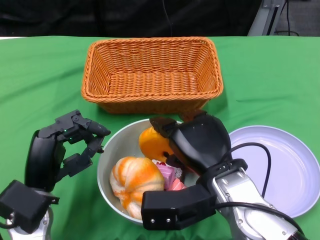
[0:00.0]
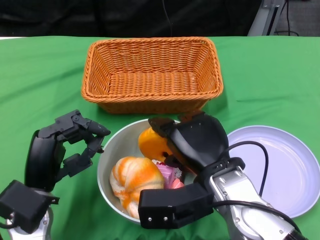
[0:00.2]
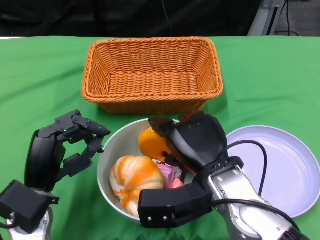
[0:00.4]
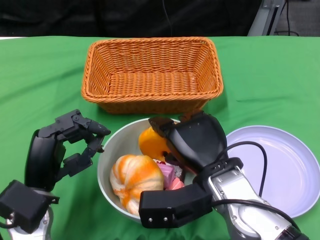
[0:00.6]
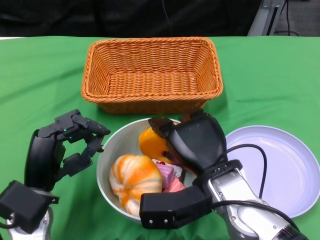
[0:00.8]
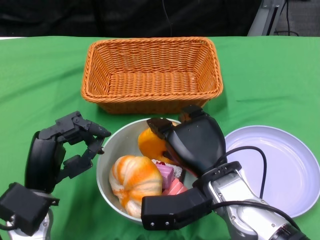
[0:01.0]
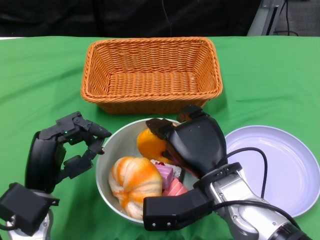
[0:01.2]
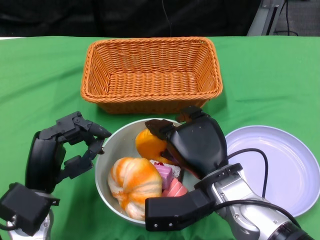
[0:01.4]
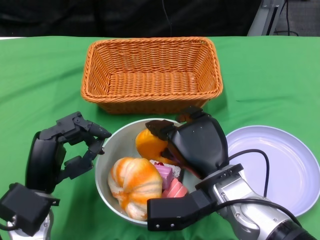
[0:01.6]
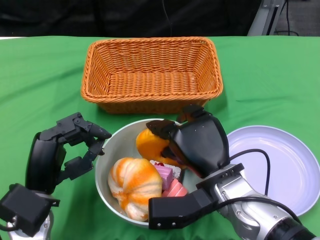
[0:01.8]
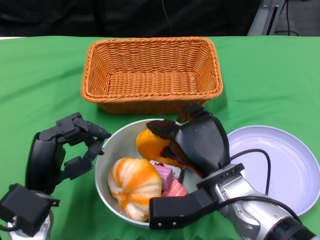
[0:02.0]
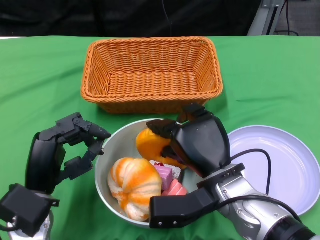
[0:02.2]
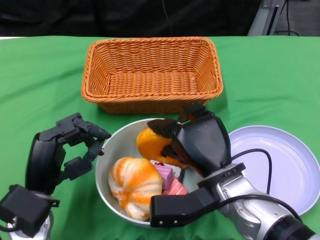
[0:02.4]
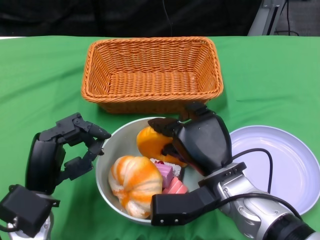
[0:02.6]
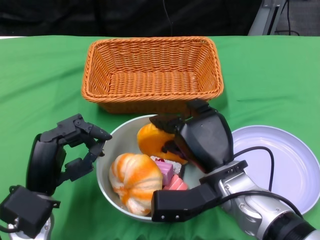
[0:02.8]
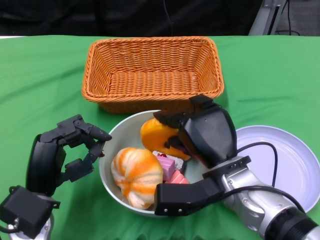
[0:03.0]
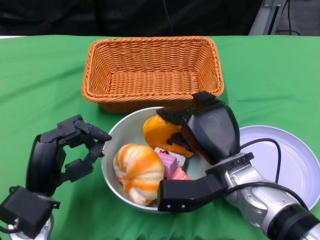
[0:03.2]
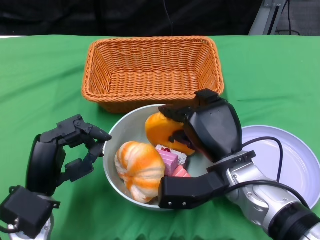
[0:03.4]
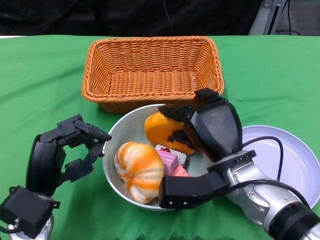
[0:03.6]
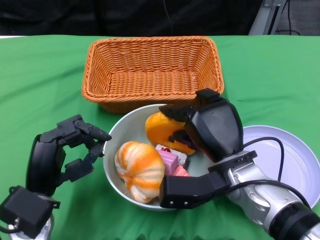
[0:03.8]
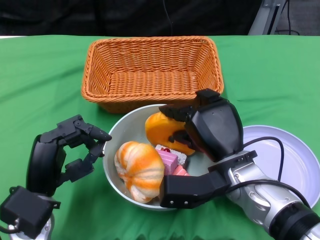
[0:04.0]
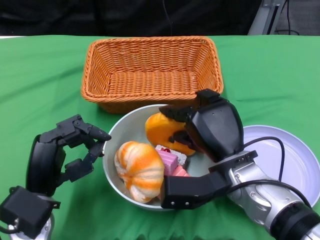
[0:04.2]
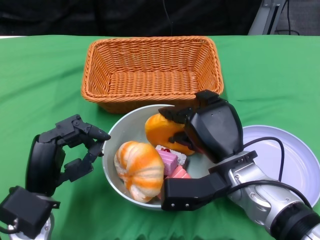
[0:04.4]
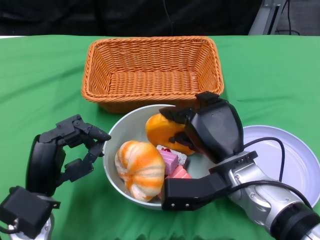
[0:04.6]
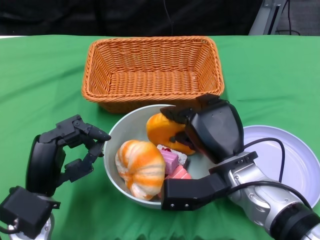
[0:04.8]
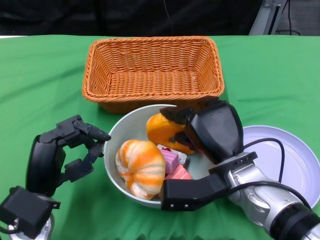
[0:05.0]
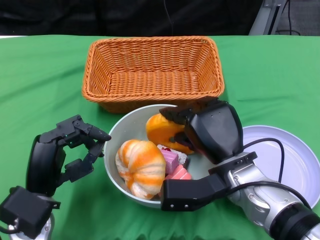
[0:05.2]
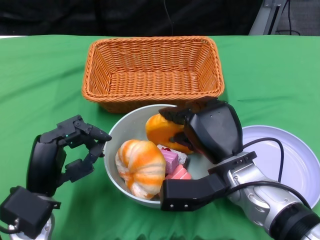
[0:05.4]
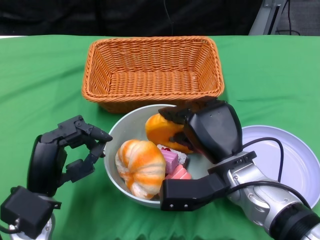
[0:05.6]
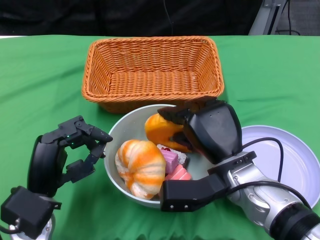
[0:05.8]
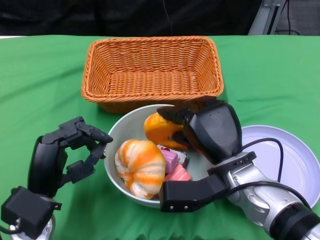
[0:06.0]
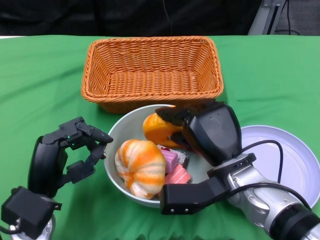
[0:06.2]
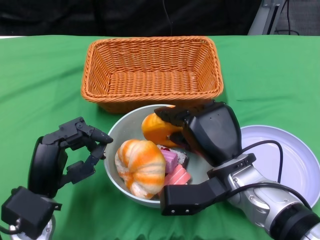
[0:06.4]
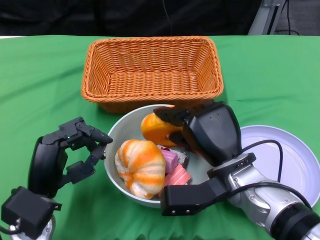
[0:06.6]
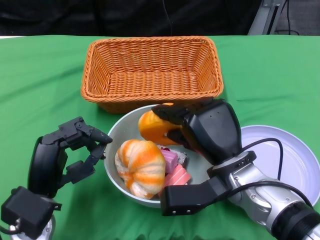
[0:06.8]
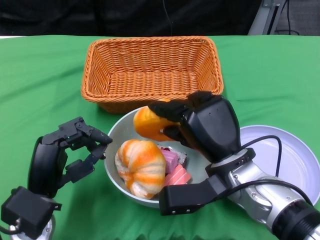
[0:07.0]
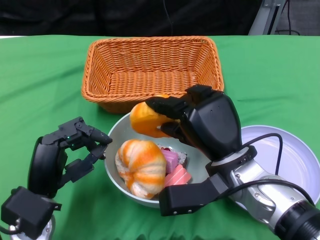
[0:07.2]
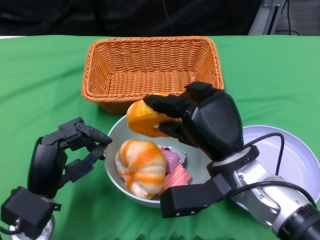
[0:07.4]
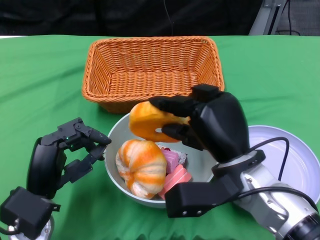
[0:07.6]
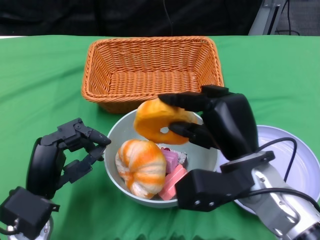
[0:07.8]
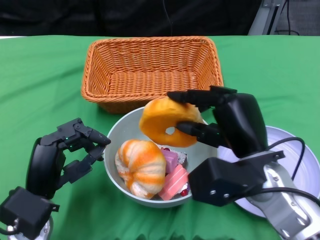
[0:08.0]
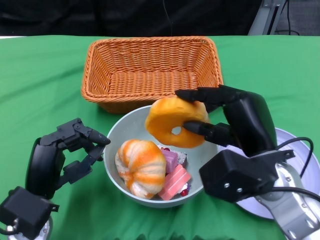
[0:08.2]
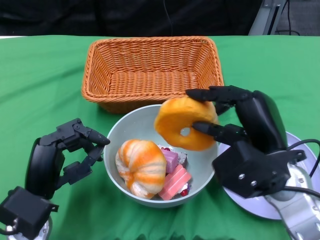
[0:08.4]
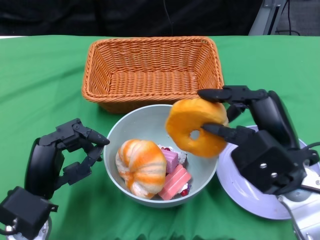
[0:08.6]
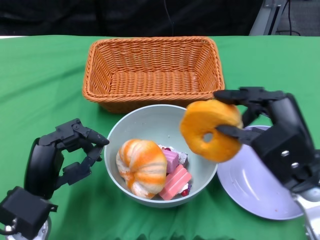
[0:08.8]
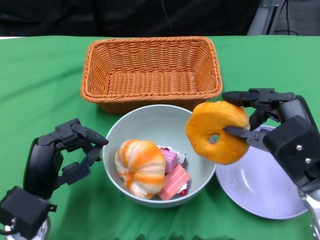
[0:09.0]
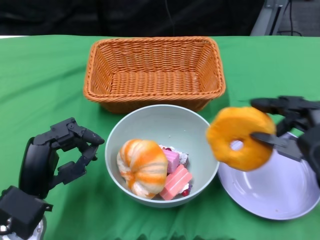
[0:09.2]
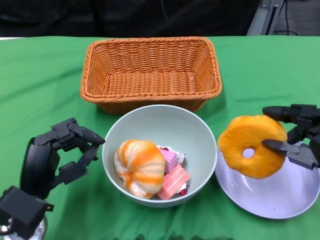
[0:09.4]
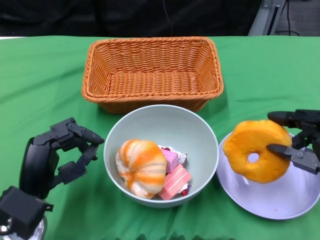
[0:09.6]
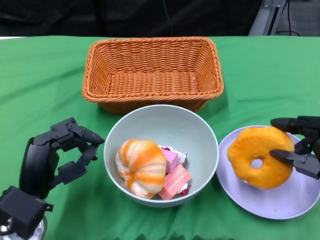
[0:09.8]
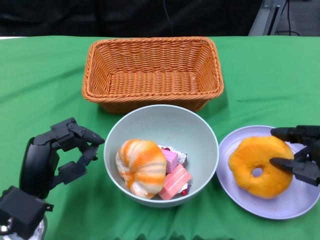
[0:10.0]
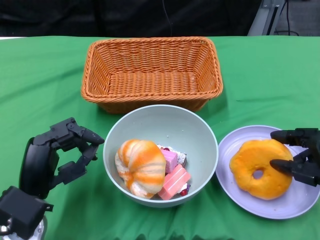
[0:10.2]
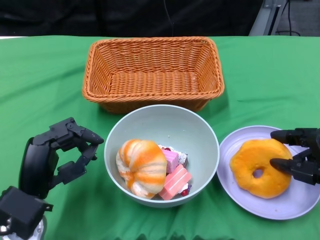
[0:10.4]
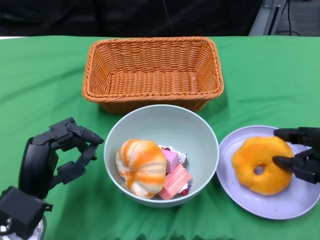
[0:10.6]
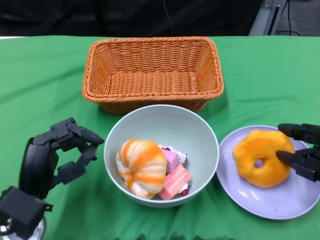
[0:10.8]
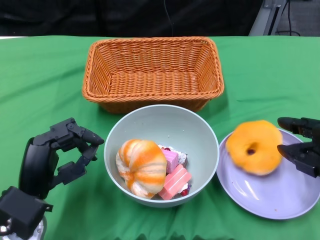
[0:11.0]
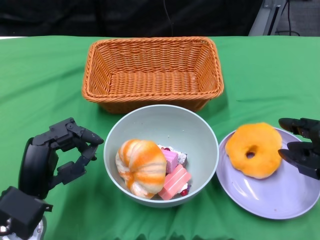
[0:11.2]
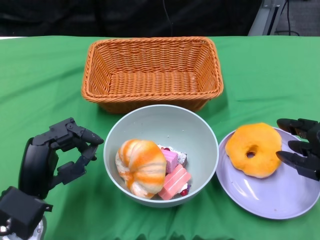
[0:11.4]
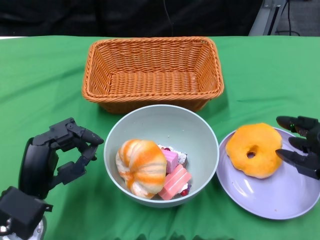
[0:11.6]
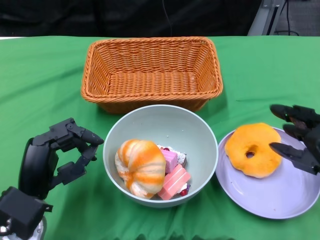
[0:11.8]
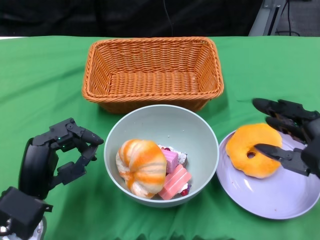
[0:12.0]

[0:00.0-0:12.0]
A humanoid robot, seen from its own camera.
0:00.0 to 0:01.6: The hands make only small movements.
0:03.0 to 0:06.0: Both hands stay about where they are.
0:06.0 to 0:07.6: The hands move only a little.
0:07.6 to 0:09.0: The right hand heads to the right, covering roughly 10 cm.
0:09.0 to 0:10.4: The right hand shifts some 5 cm to the right.
0:10.4 to 0:12.0: The right hand is displaced upward by about 5 cm.

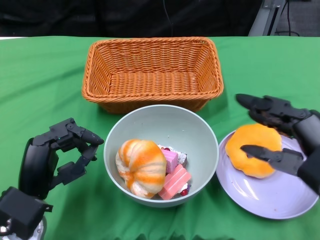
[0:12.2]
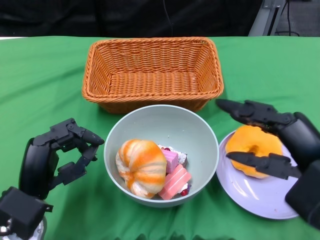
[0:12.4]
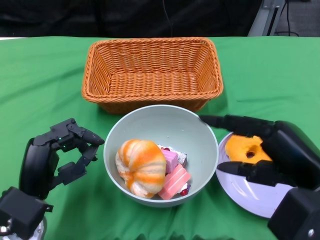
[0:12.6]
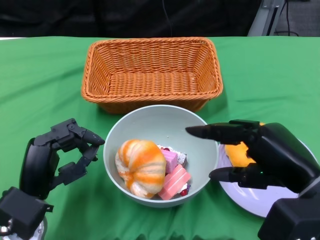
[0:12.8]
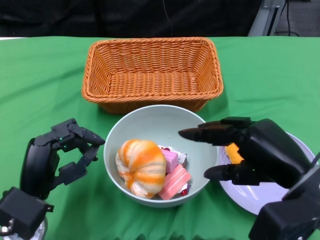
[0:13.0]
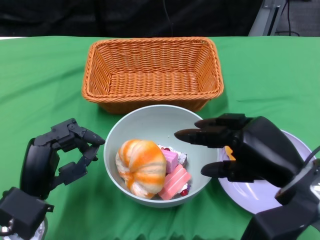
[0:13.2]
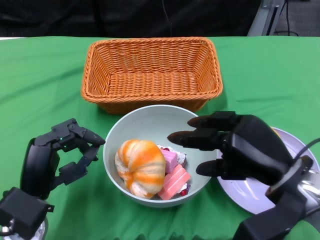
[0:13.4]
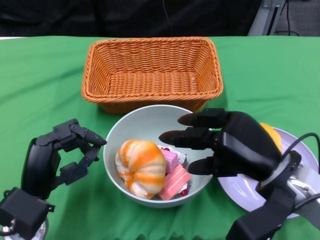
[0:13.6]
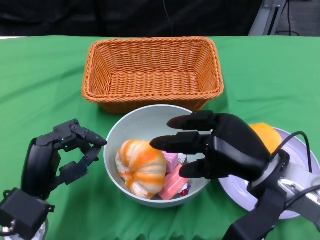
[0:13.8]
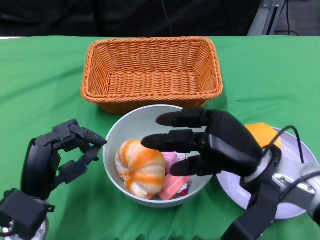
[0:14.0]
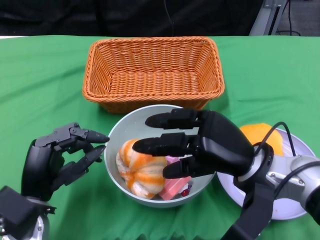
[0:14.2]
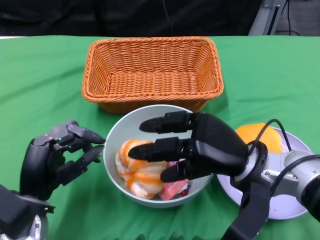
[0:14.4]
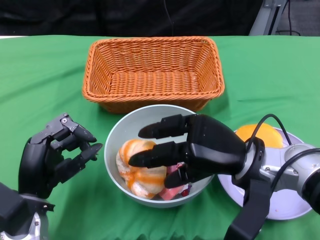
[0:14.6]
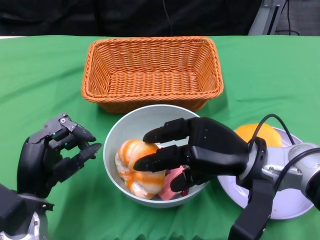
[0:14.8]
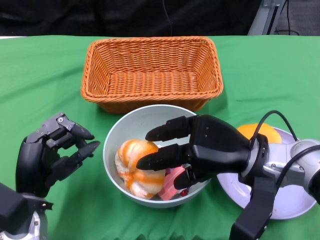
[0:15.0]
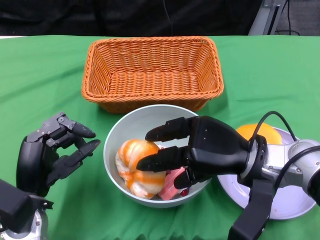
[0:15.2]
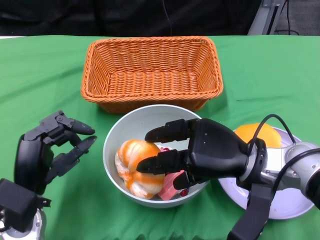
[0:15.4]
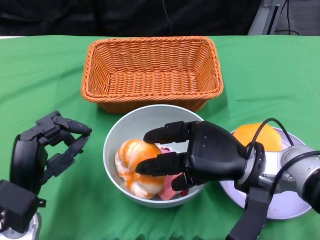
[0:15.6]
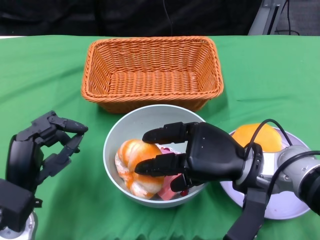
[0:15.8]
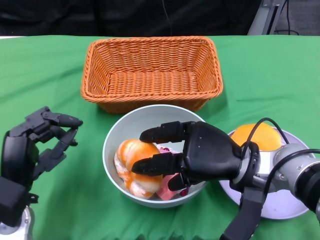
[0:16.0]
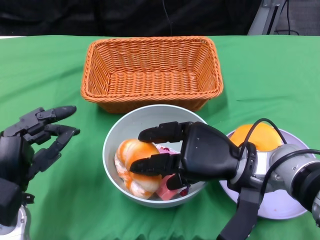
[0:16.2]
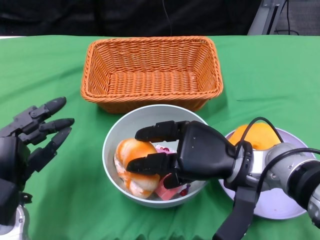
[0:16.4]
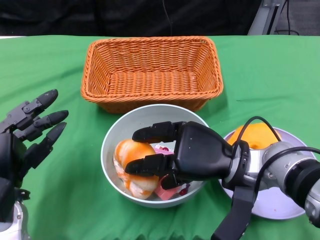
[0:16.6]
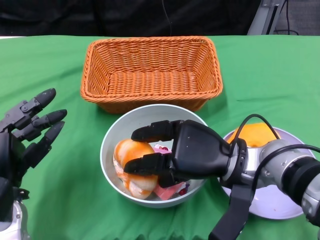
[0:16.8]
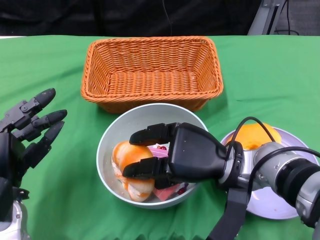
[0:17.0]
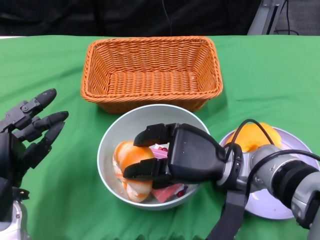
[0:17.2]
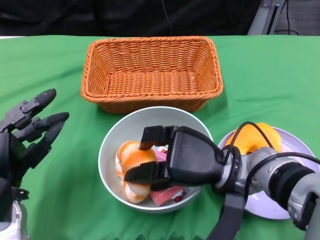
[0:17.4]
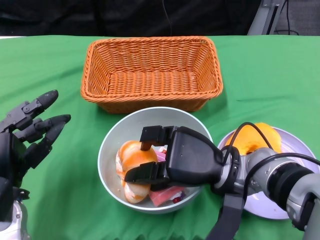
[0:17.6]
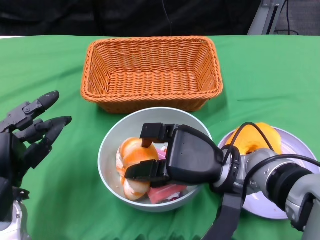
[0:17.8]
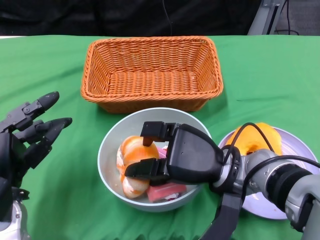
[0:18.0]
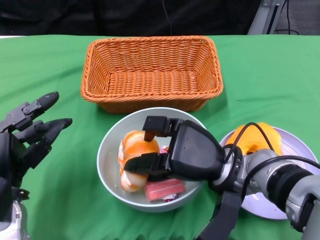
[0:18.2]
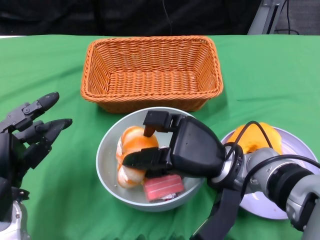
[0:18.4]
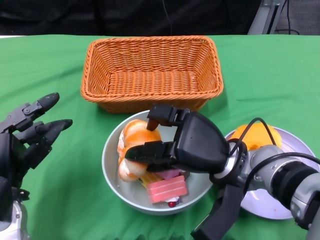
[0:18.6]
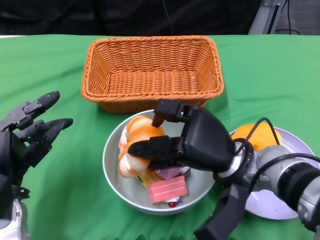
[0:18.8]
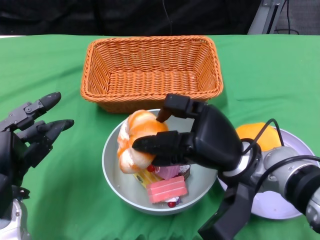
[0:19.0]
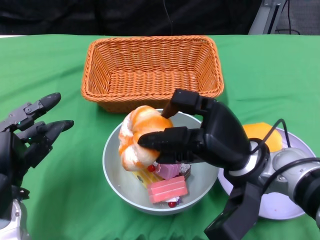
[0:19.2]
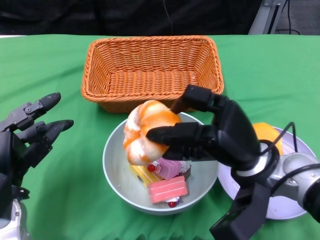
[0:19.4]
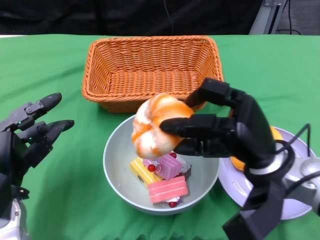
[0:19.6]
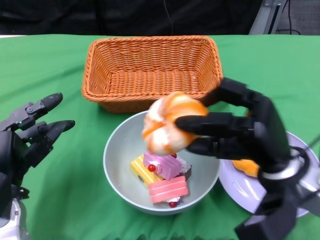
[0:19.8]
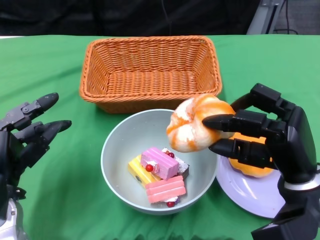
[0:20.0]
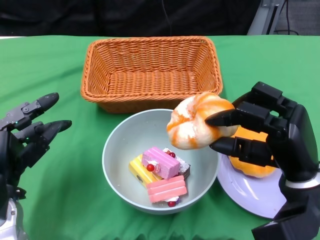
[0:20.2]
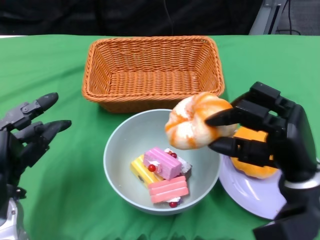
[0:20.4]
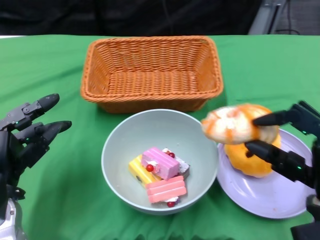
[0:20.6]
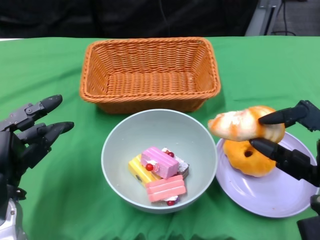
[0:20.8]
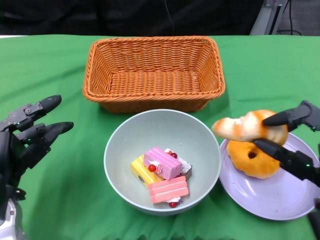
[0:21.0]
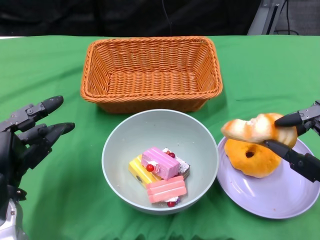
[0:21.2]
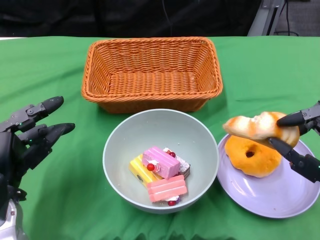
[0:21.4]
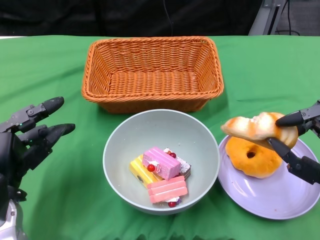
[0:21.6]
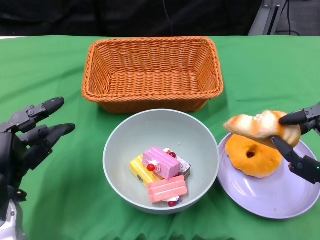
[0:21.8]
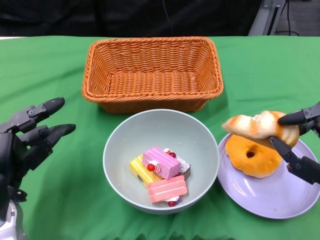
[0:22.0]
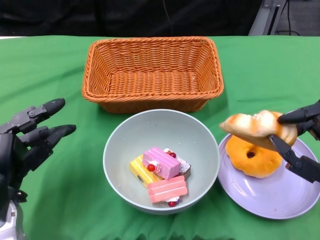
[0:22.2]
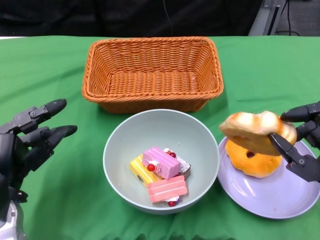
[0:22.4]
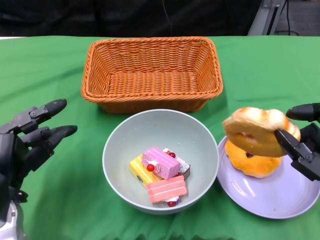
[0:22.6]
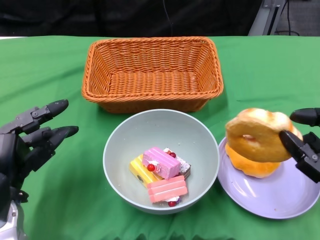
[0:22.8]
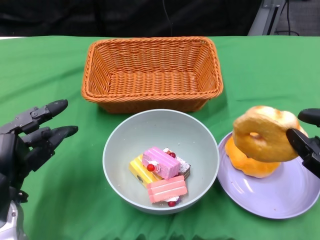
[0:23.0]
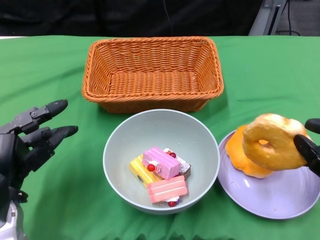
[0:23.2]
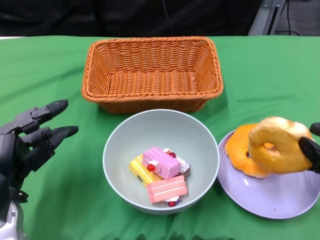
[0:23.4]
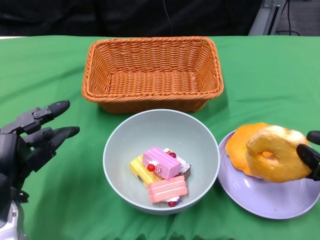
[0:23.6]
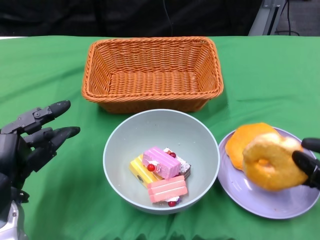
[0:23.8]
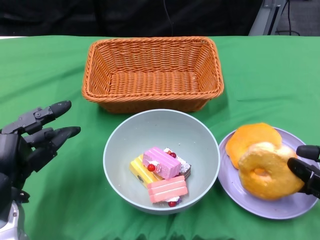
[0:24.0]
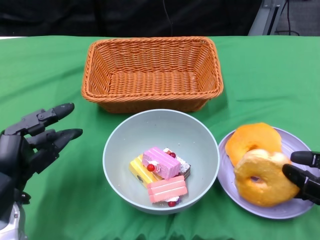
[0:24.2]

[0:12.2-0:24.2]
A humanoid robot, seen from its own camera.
0:12.2 to 0:13.8: The right hand travels to the left, forward and downward by approximately 10 cm.
0:16.6 to 0:18.2: There are only small adjustments of the hands.
0:18.2 to 0:19.8: The right hand is displaced to the right by some 5 cm.
0:19.8 to 0:21.2: The right hand moves to the right and backward, some 10 cm.
